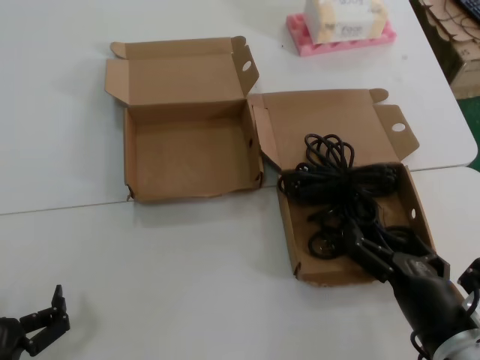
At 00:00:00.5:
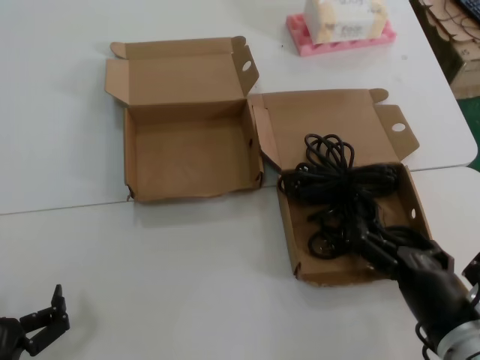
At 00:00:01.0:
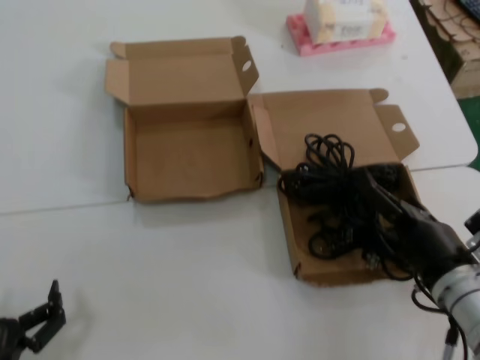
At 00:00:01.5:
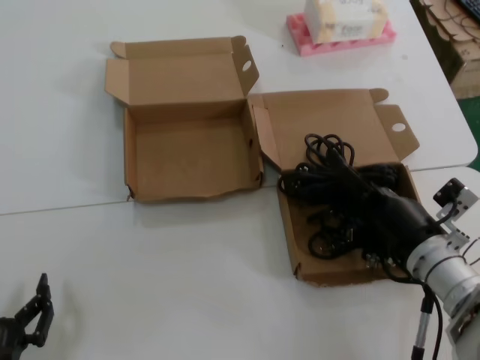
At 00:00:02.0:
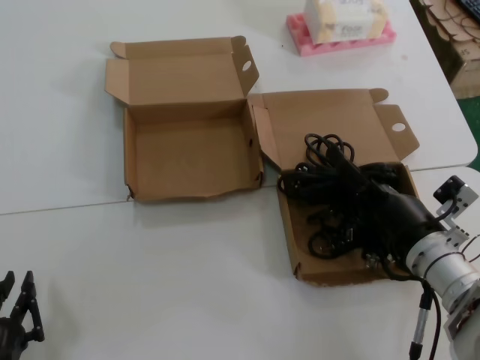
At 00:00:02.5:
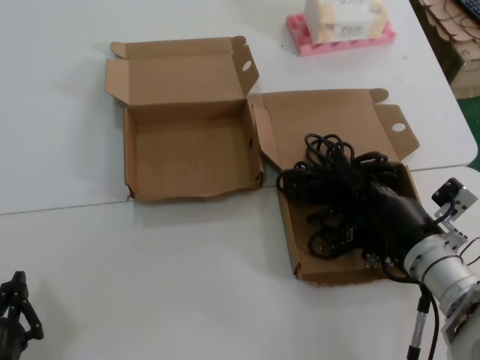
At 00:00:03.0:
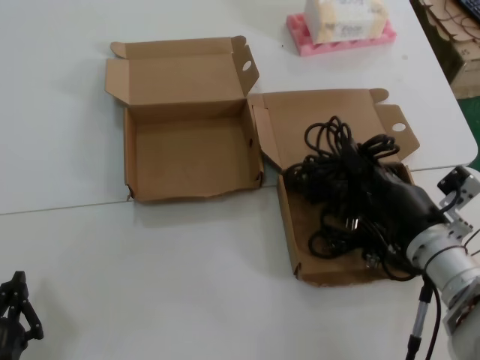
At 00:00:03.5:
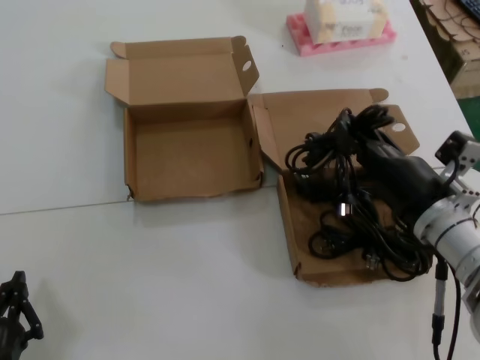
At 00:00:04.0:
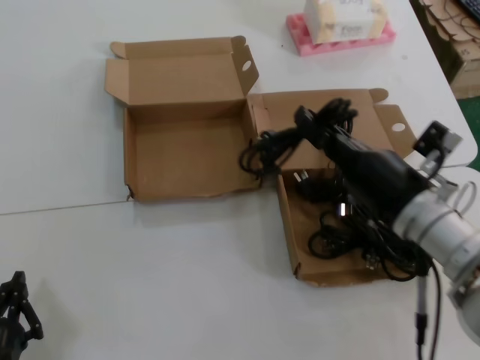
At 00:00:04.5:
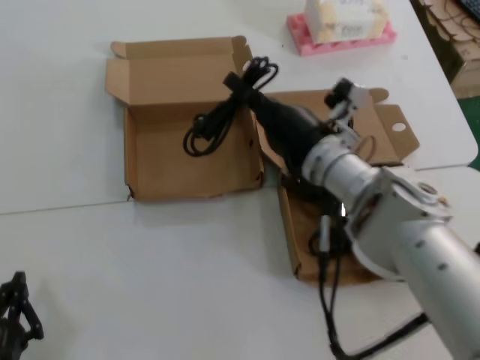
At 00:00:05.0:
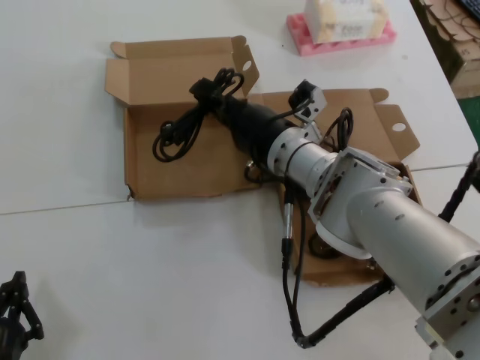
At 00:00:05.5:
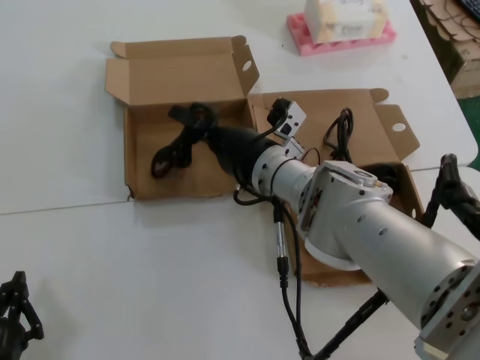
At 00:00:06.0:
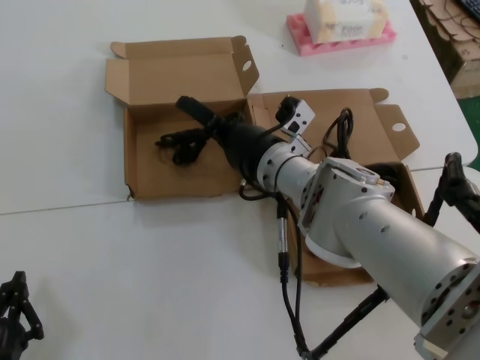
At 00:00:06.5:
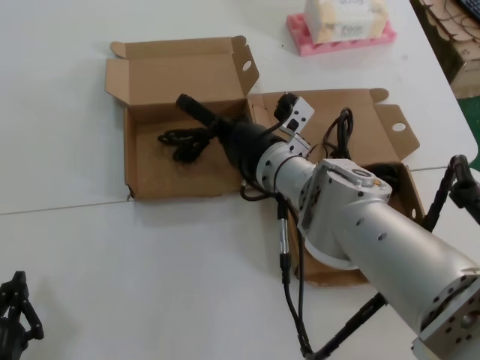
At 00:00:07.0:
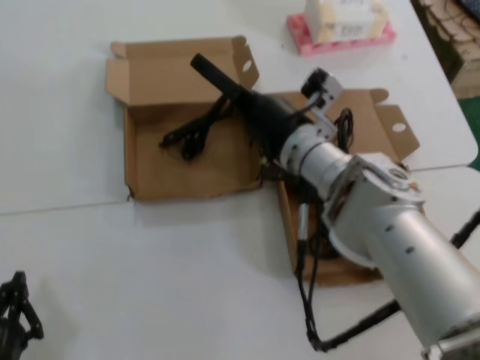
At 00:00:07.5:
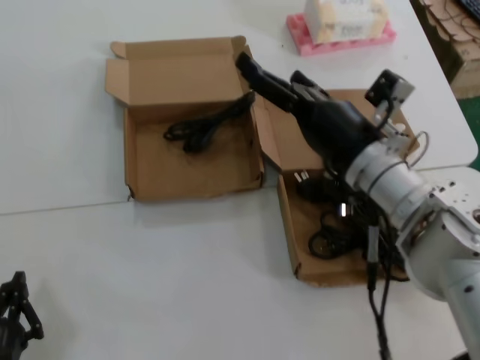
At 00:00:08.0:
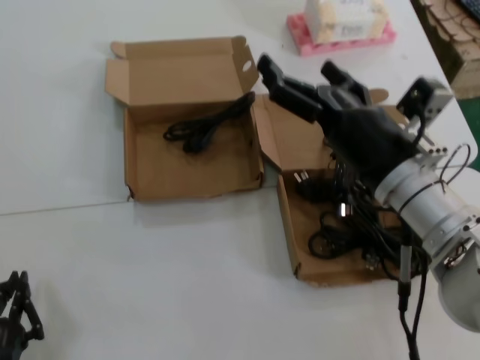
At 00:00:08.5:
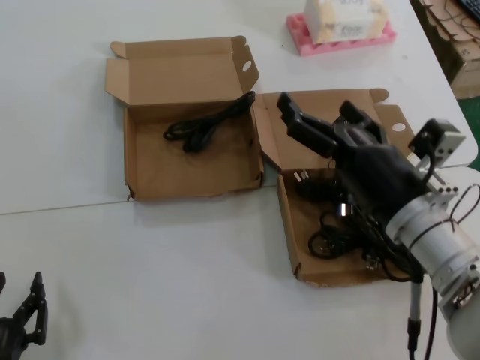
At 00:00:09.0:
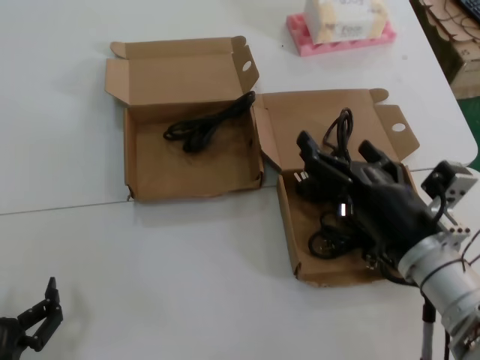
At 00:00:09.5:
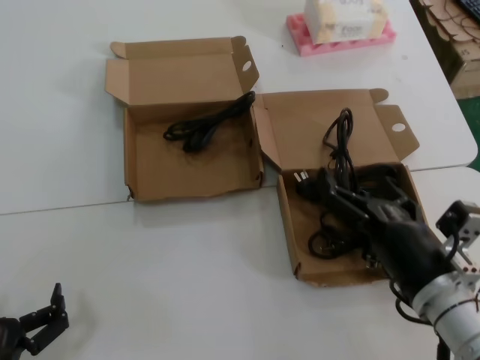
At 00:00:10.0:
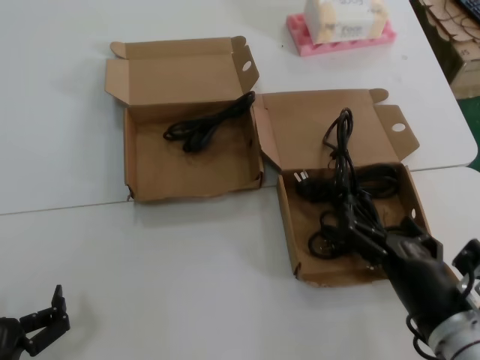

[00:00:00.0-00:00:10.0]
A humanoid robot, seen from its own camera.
Task of the whole recording: Pick up the power cord from the box containing it and place it in another box.
Step, 00:00:00.0 to 00:00:02.5: Grasp the data cable.
Step, 00:00:03.0 to 00:00:06.0: Place the data cable in the another box.
00:00:00.0 to 00:00:02.0: The right hand travels forward by some 15 cm.
00:00:02.0 to 00:00:04.0: The right hand travels upward by about 10 cm.
00:00:04.0 to 00:00:06.0: The right hand goes roughly 20 cm to the left and forward.
00:00:06.0 to 00:00:08.0: The right hand travels backward and to the right by roughly 15 cm.
00:00:08.0 to 00:00:10.0: The right hand moves downward and backward, about 15 cm.
